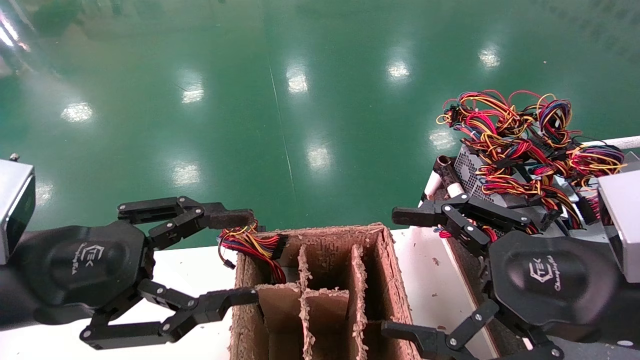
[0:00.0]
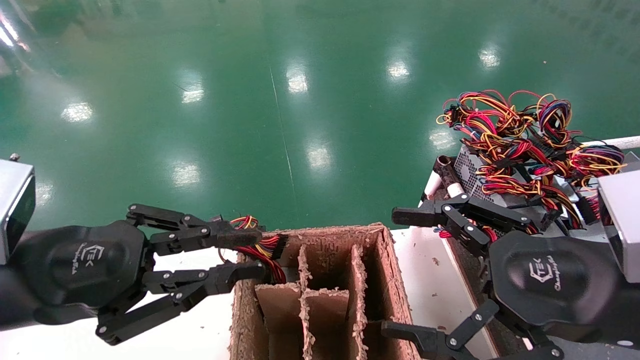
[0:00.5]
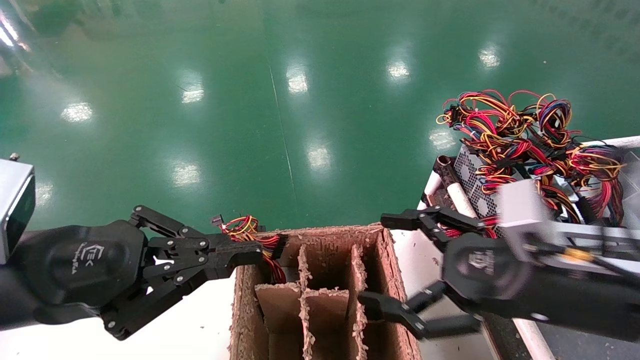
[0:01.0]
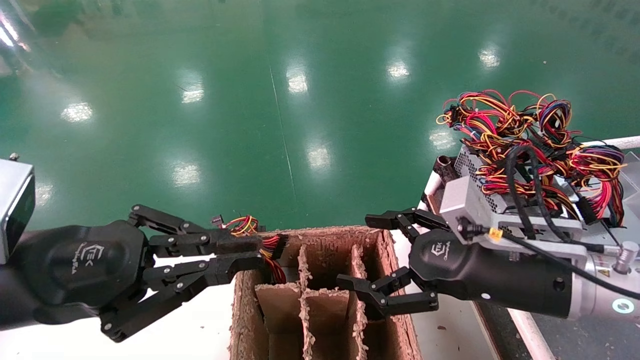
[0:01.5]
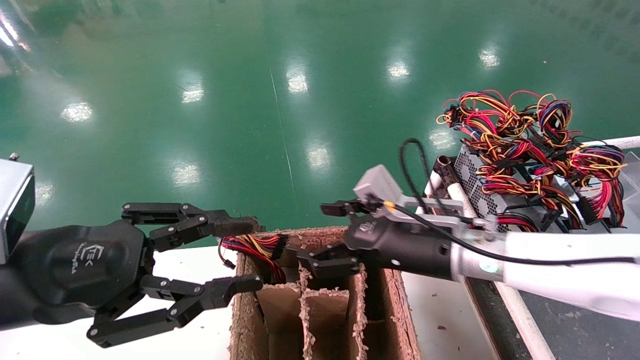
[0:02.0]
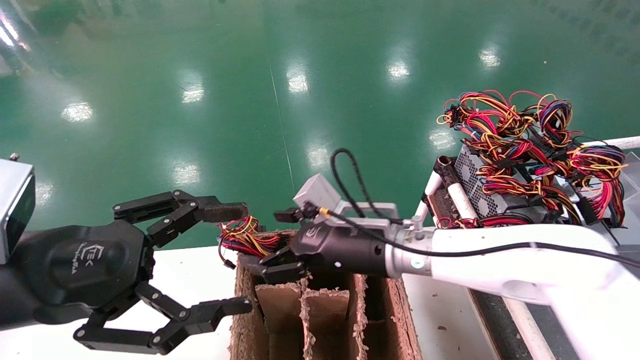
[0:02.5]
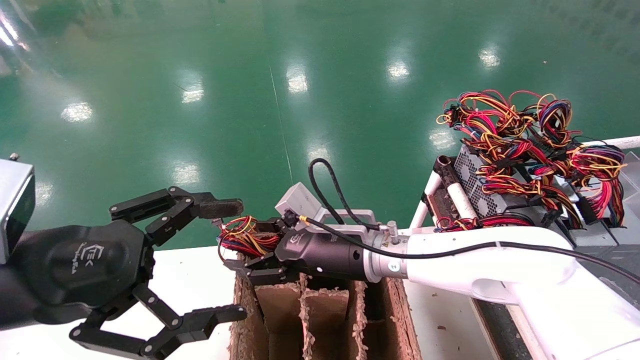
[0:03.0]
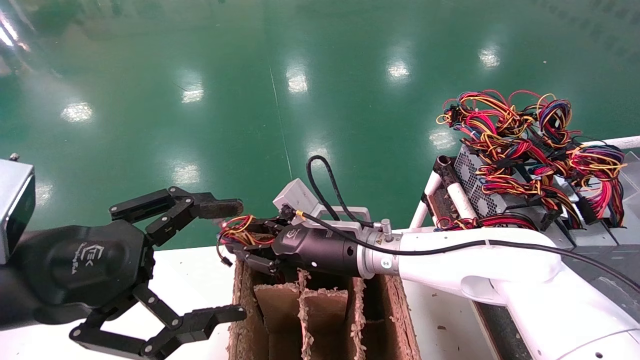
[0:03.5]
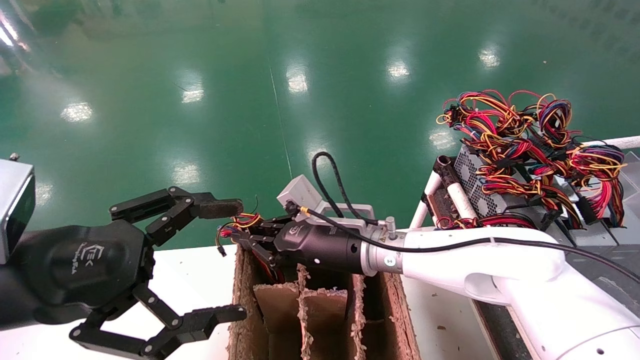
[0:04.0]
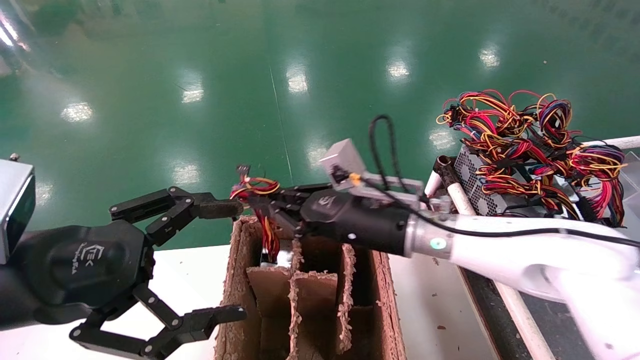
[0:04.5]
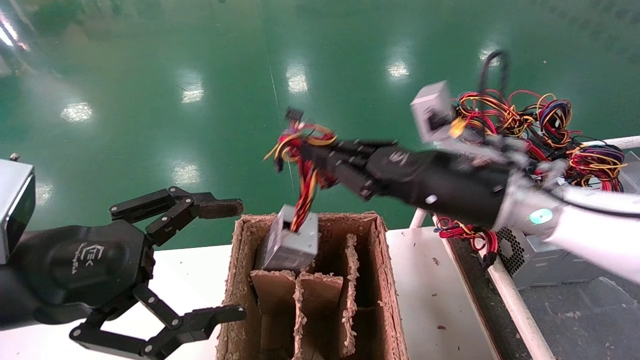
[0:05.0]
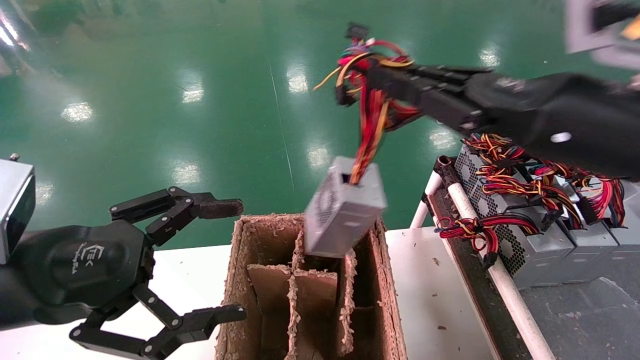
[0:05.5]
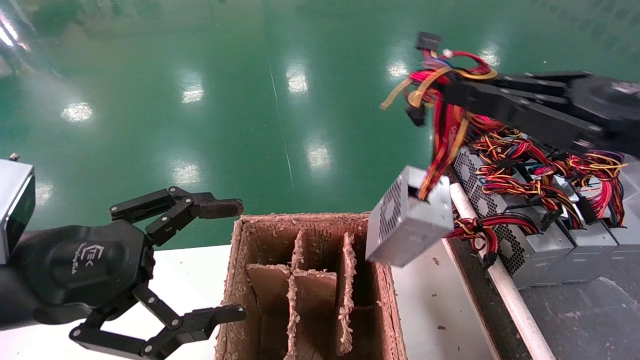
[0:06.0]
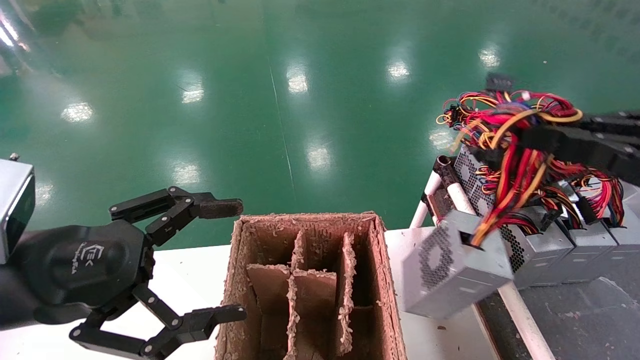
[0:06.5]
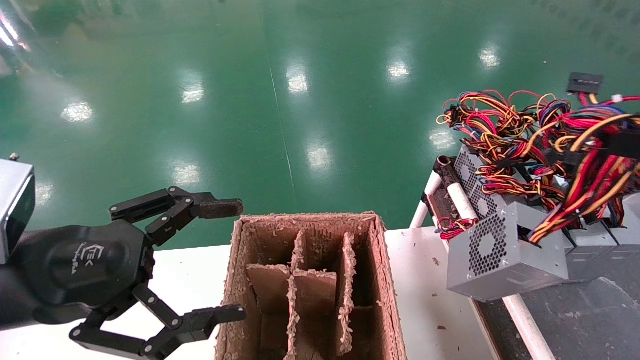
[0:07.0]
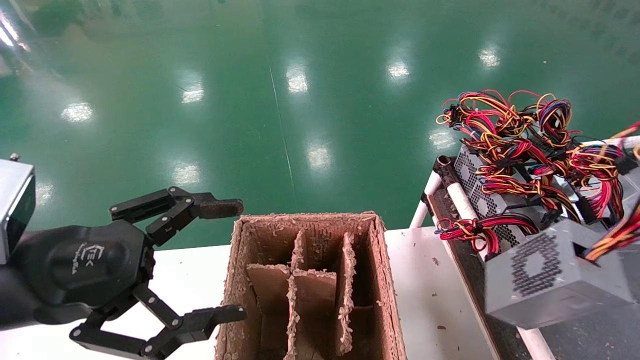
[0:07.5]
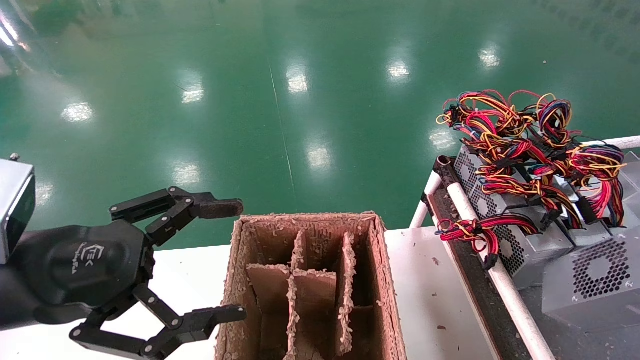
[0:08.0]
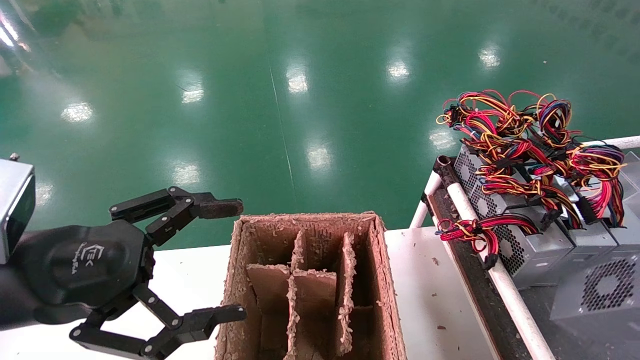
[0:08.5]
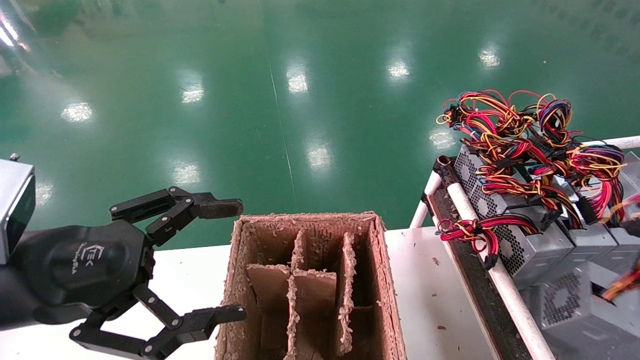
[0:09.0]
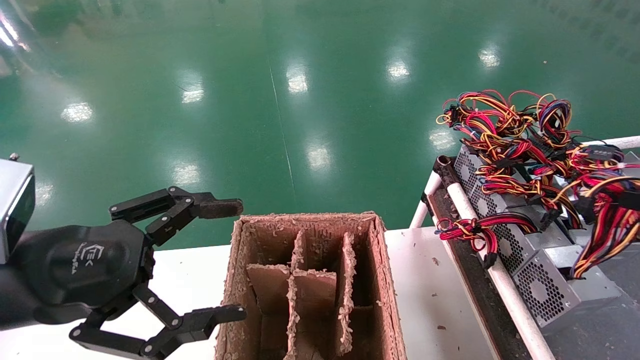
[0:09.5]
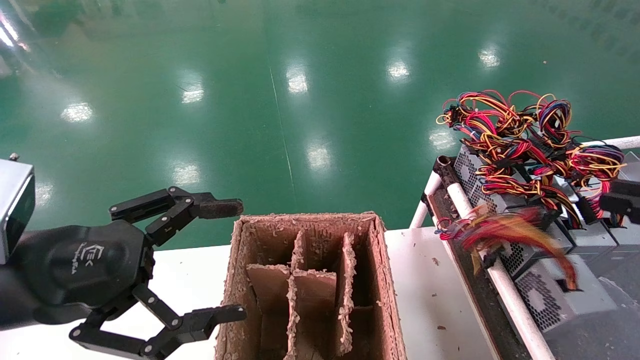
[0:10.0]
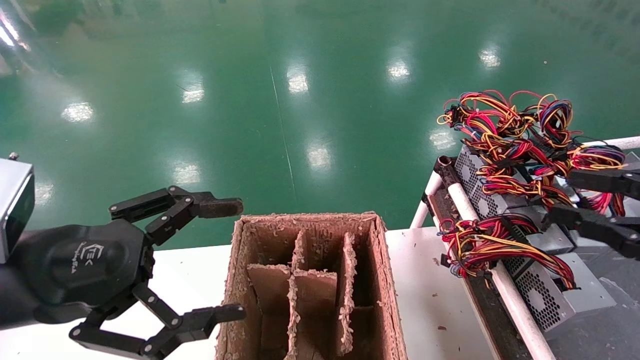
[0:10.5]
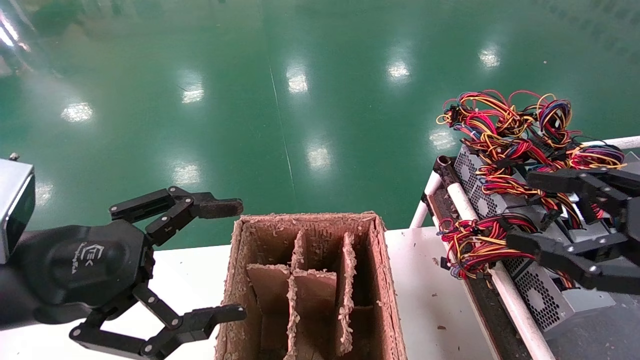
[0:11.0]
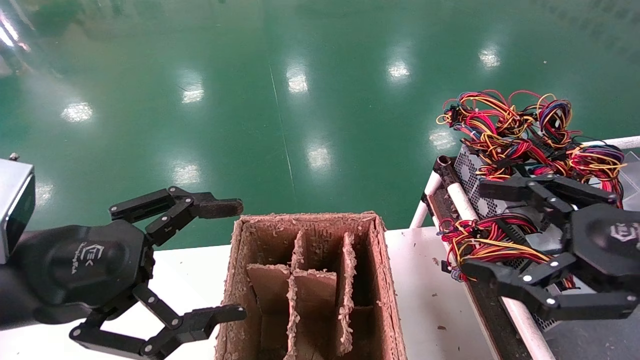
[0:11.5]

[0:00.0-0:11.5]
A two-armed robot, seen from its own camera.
Step, 0:01.0 to 0:03.5: Grab and lift the power supply from the large box.
Step, 0:04.0 to 0:10.0: Place the power supply on the operating table.
0:00.0 to 0:02.0: The right gripper goes roughly 20 cm forward and to the left.
0:02.0 to 0:04.0: The left gripper opens. Meanwhile the right gripper travels to the left by approximately 10 cm, and closes.
0:04.0 to 0:06.0: The right gripper goes about 40 cm to the right, upward and backward.
0:06.0 to 0:07.5: The right gripper heads to the right and backward, covering approximately 20 cm.
0:07.5 to 0:09.5: The right gripper changes place by roughly 5 cm.
0:09.5 to 0:11.5: The right gripper is displaced to the left and forward by about 15 cm, and opens up.
